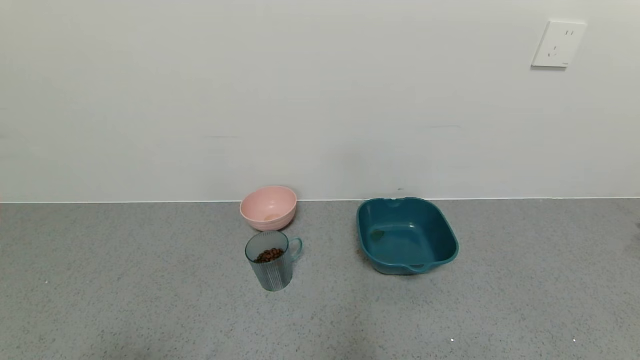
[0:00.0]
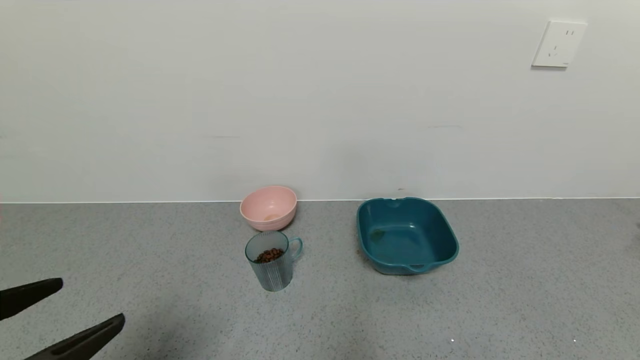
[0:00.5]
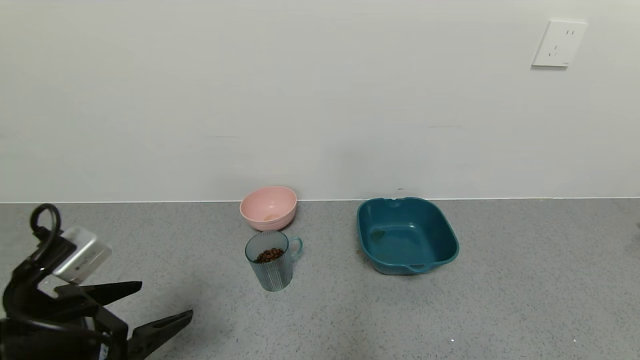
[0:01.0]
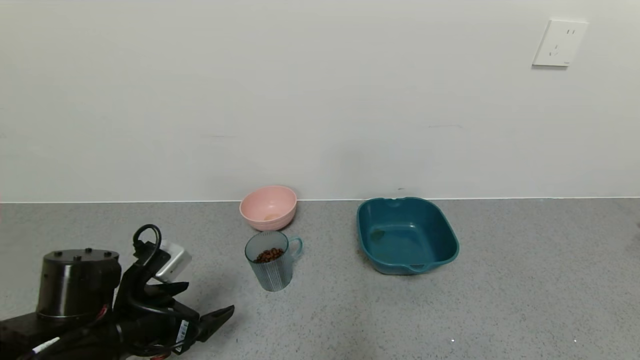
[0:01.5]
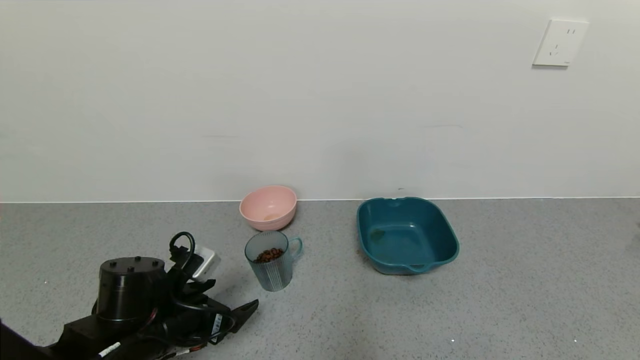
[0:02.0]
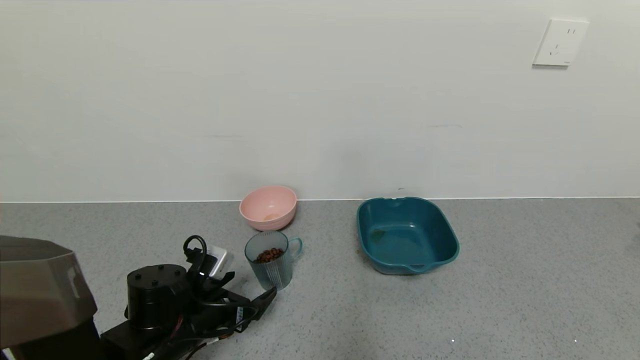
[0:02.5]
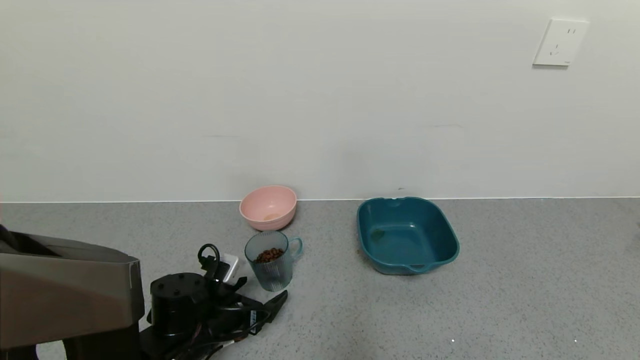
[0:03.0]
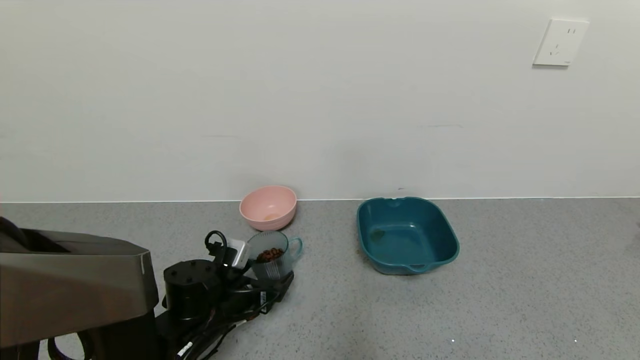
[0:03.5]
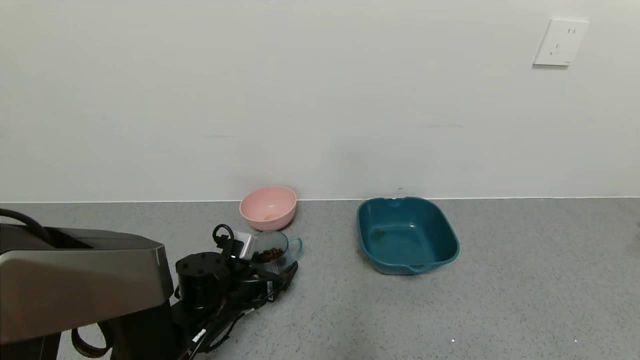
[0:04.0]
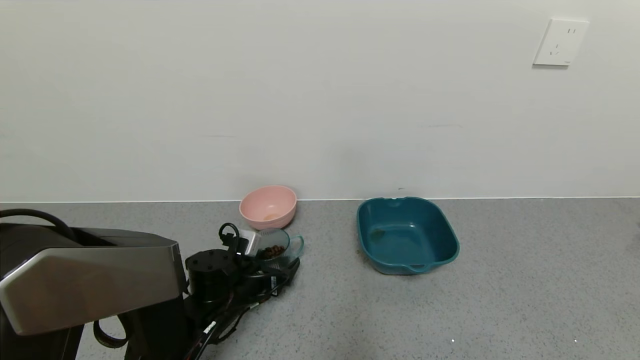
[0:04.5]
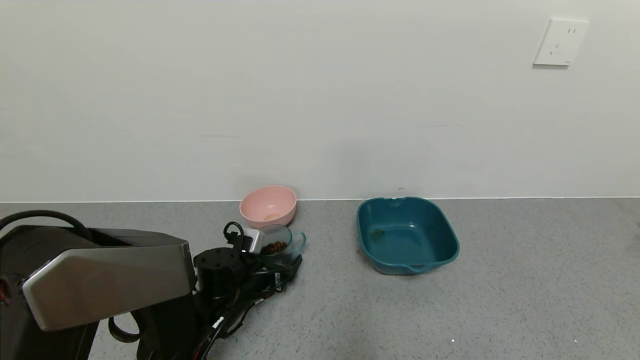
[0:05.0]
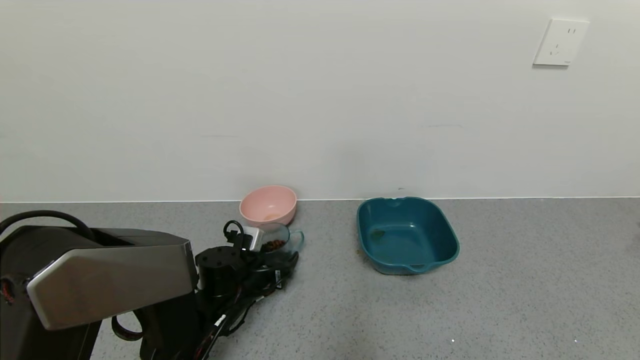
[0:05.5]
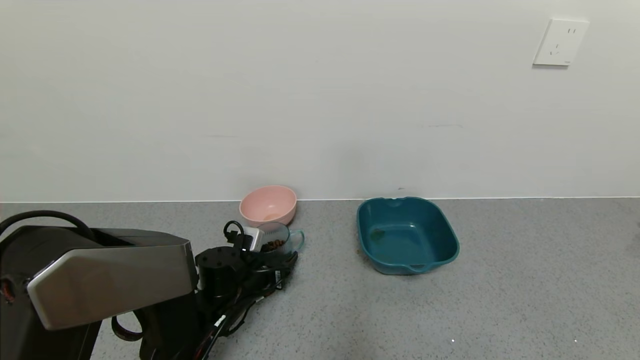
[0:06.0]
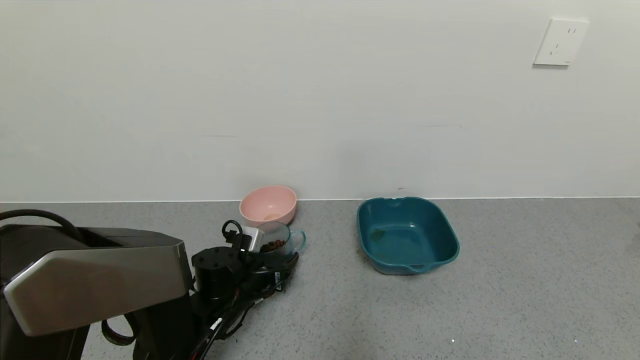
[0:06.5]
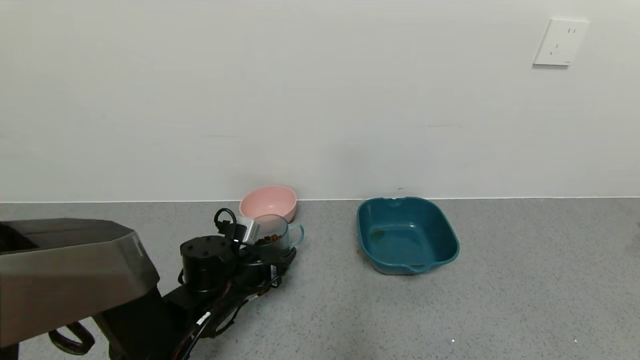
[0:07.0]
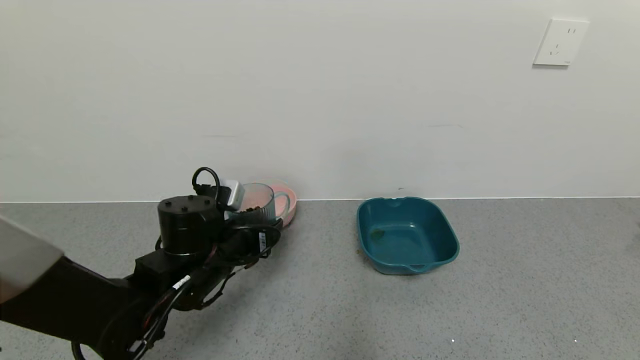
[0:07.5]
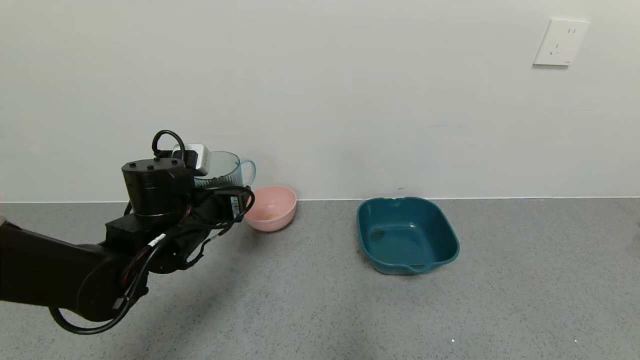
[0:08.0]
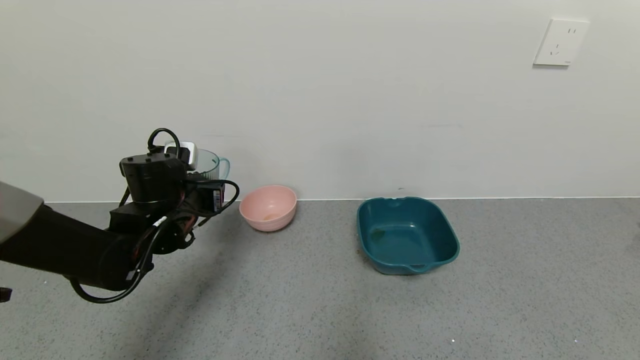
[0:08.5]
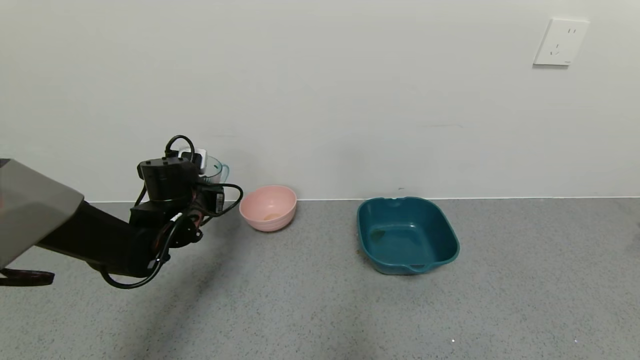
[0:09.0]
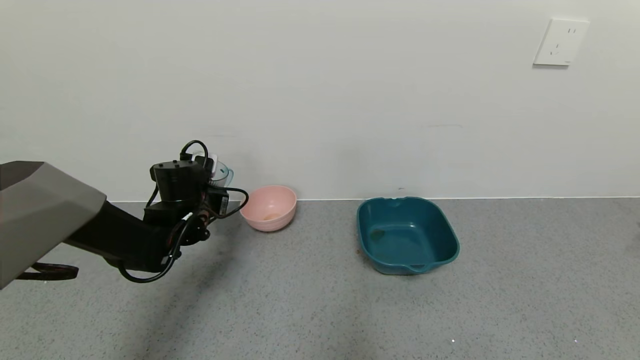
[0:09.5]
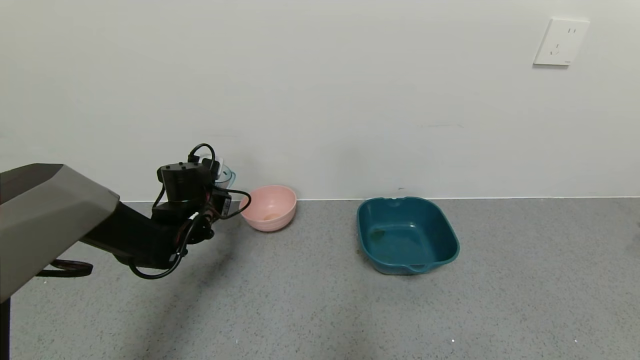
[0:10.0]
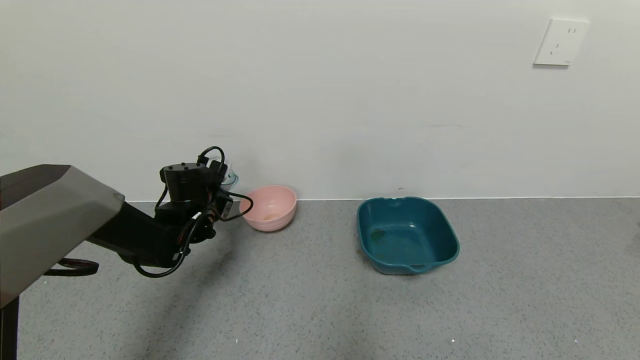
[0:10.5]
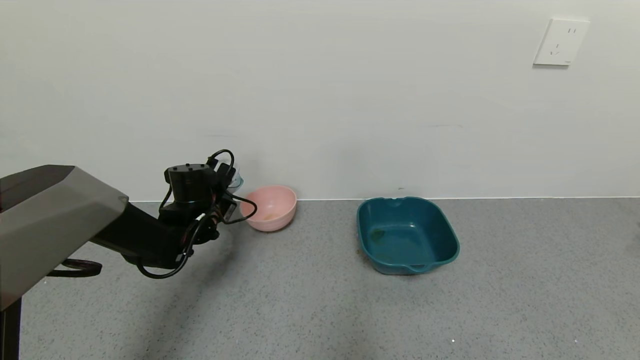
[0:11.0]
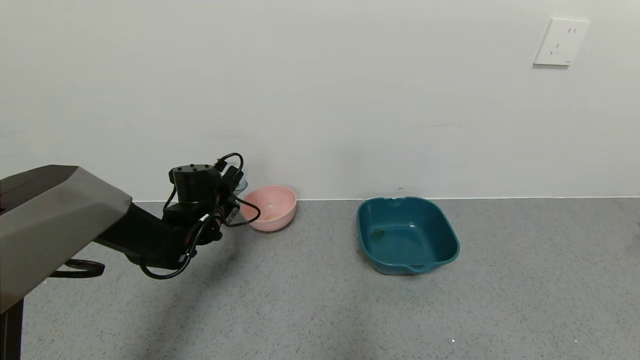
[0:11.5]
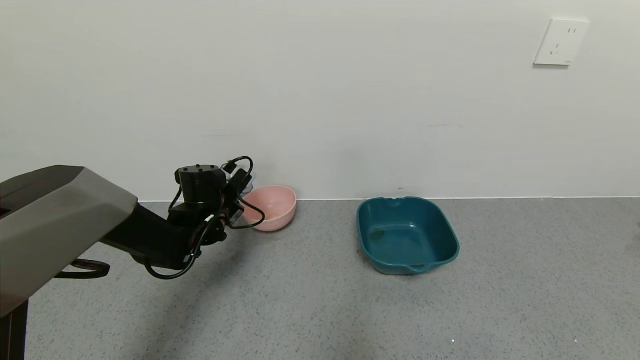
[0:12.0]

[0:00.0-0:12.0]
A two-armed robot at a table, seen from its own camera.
Task of the whole recording: use a gripper to pick up the cup and pour the solid into a bowl or tray.
Step, 0.0 to 5.0 s: Grasp the glass of coffee beans with the left gripper.
0.0 to 2.0 s: The left gripper heads forward and downward, covering roughly 25 cm.
2.0 to 4.0 s: The left gripper heads forward and to the right, covering roughly 10 cm.
4.0 to 6.0 s: The left gripper closes.
6.0 to 8.0 s: The left gripper heads upward, covering approximately 15 cm.
8.0 to 10.0 s: The left gripper is displaced forward by approximately 10 cm.

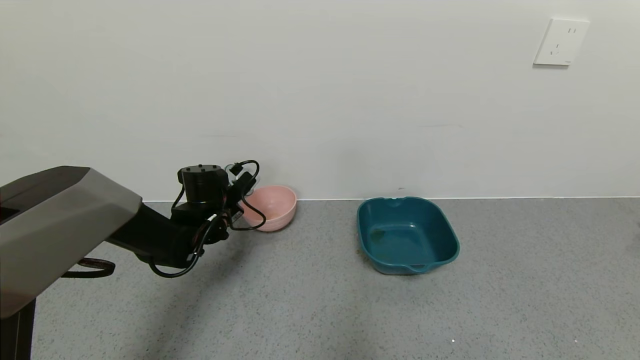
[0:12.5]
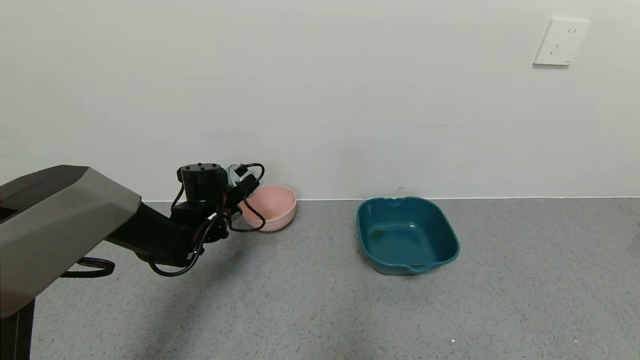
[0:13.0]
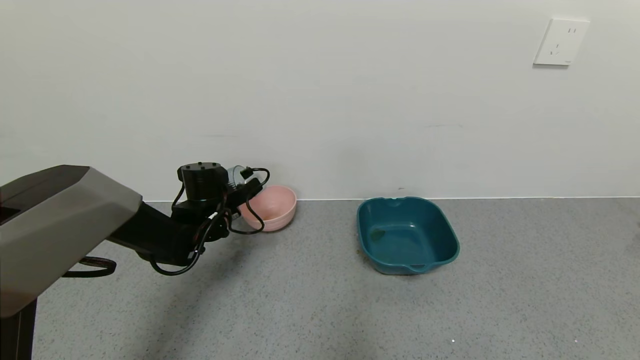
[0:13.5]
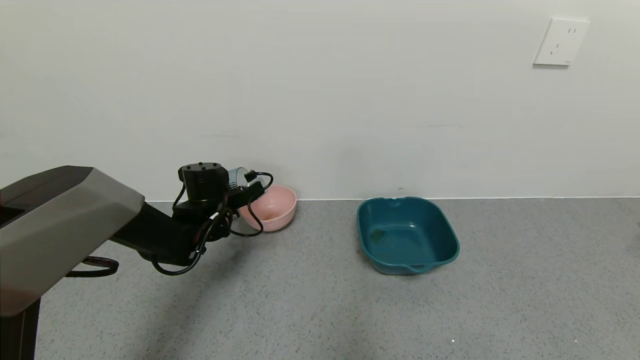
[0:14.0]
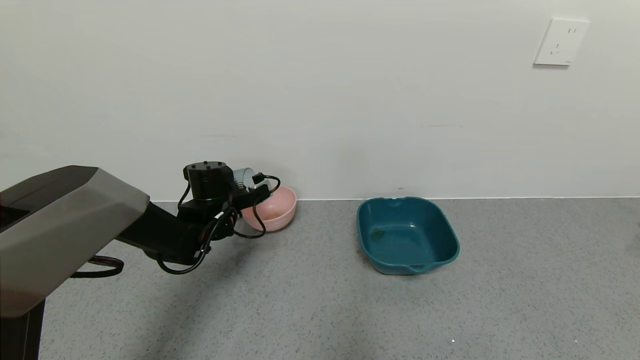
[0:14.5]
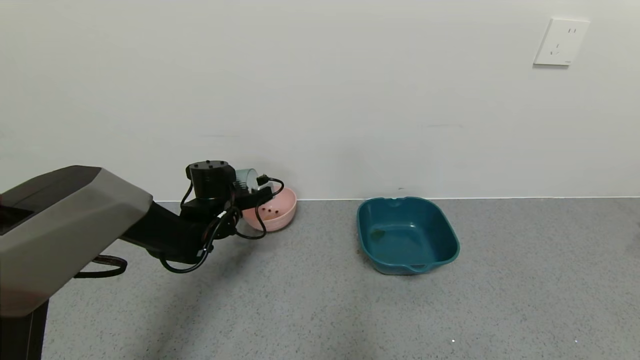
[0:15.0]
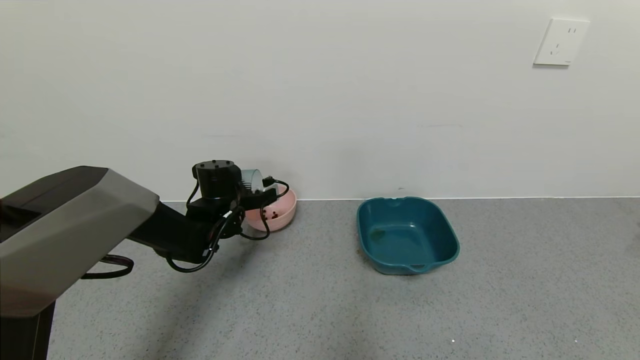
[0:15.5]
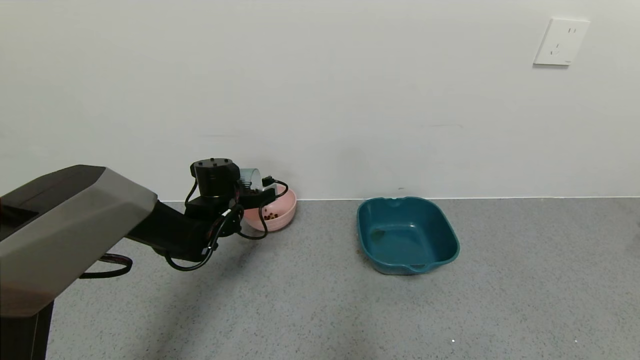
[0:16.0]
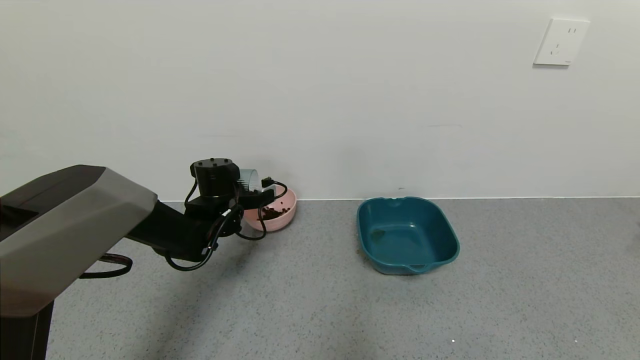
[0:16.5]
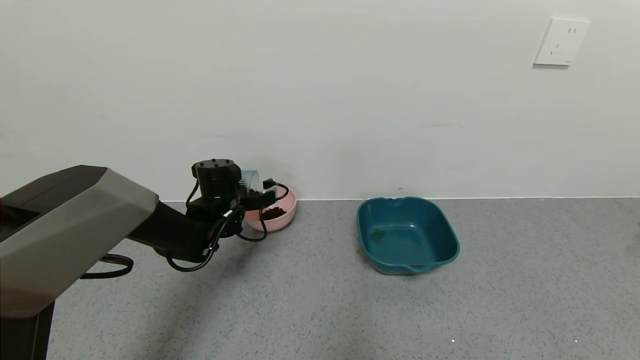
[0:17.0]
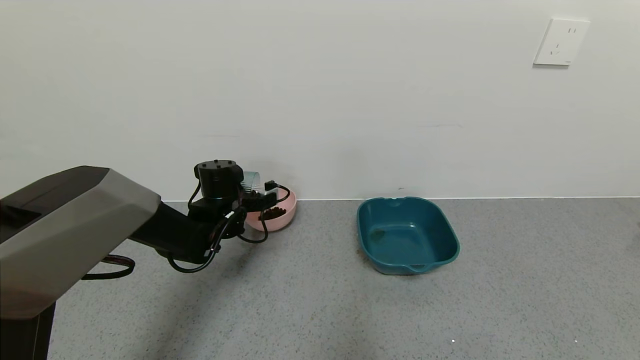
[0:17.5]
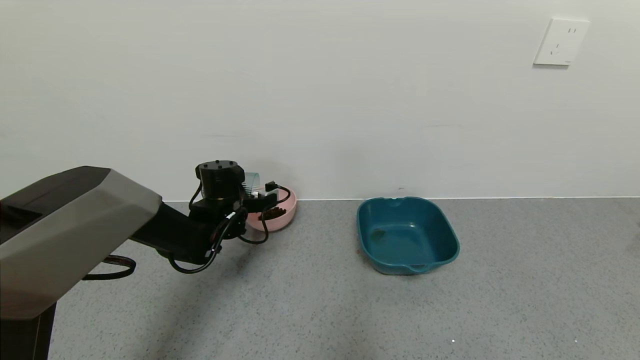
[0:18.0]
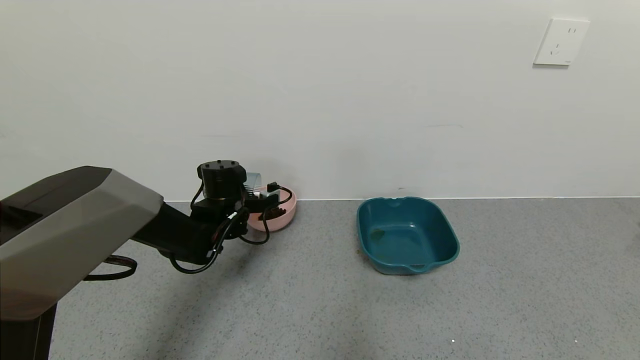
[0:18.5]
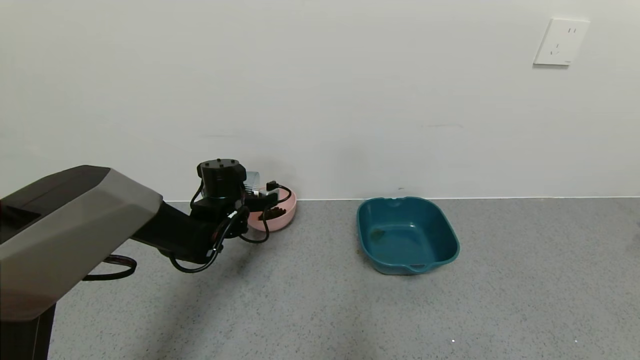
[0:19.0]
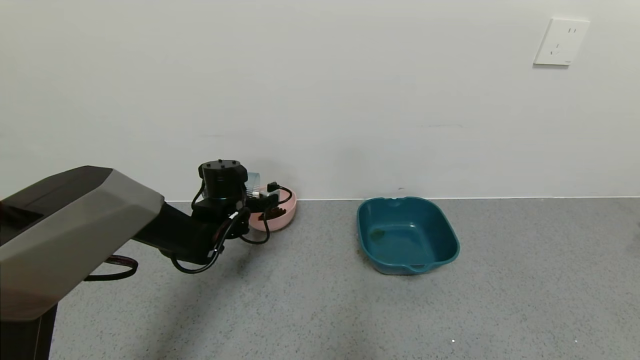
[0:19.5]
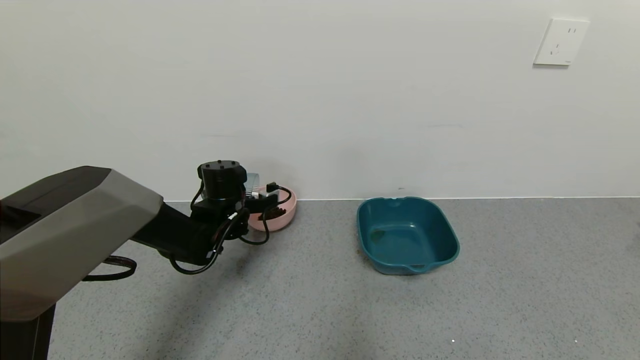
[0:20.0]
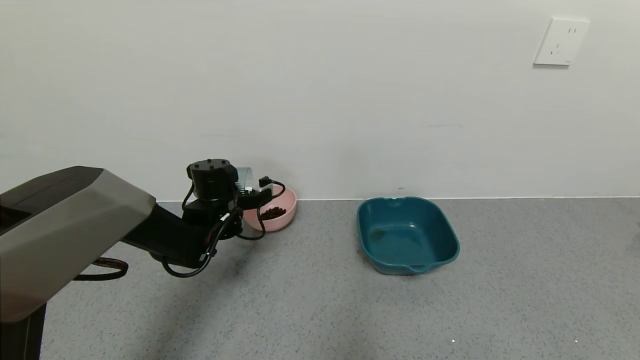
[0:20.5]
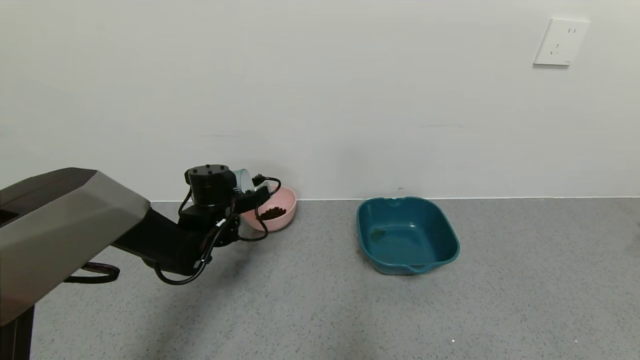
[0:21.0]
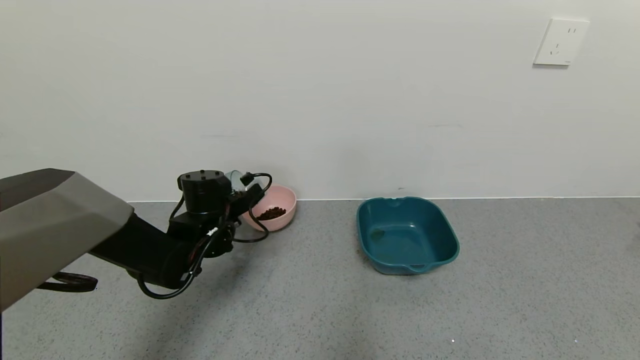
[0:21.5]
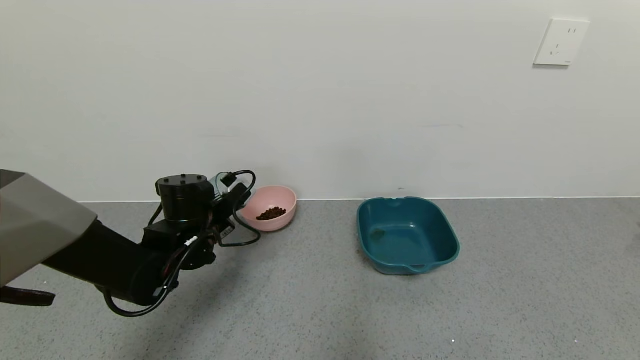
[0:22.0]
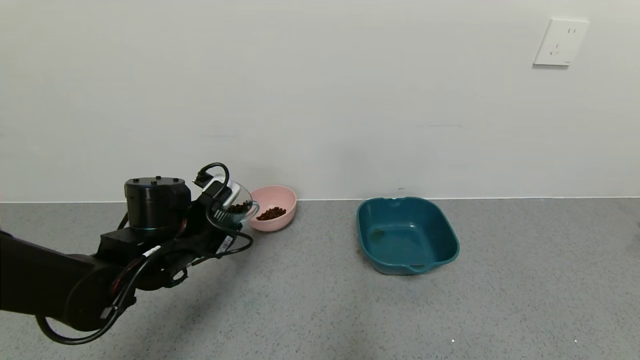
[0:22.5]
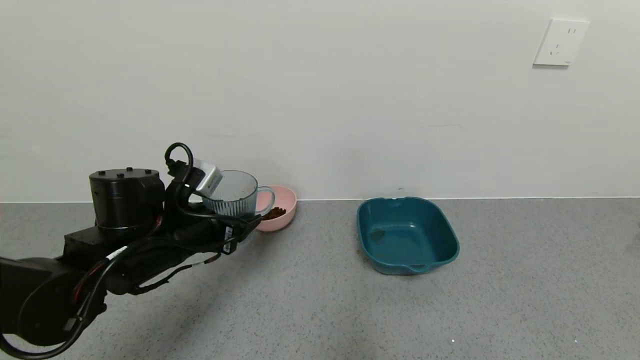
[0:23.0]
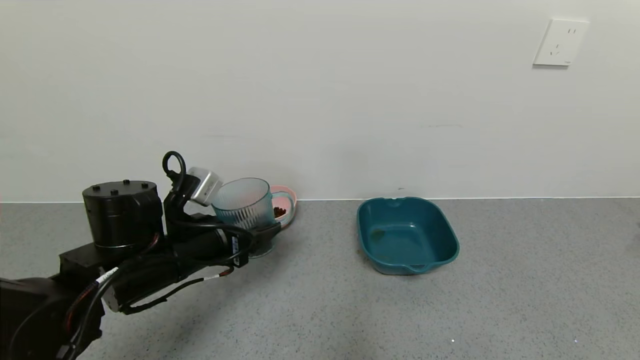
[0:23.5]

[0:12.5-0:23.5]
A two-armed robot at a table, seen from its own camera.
Task of the whole recording: use a gripper to pick up the cup and pour the solid into a bowl or tray.
Step, 12.5 to 21.5 s: Pour the coffee beans into the pink bowl with the left gripper.
14.5 to 18.0 s: The grippers make only small movements.
18.0 to 20.0 s: Both grippers stay about where they are.
21.5 to 23.5 s: The left gripper heads backward, covering approximately 10 cm.
